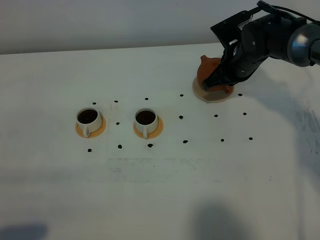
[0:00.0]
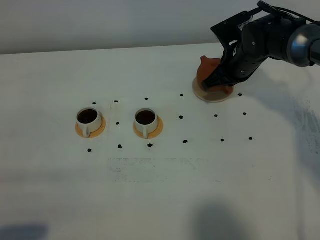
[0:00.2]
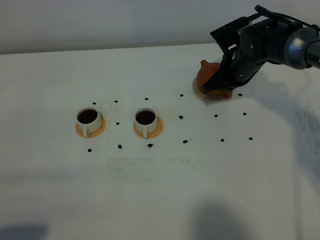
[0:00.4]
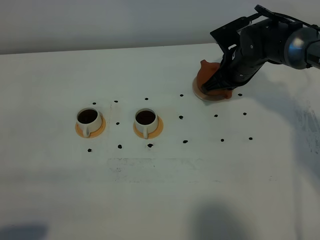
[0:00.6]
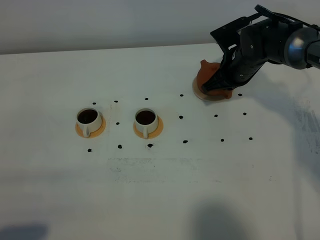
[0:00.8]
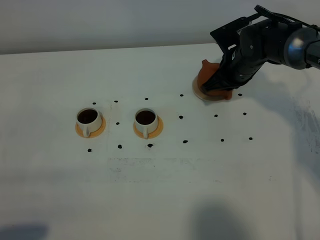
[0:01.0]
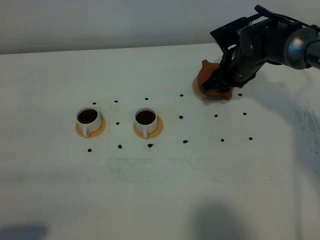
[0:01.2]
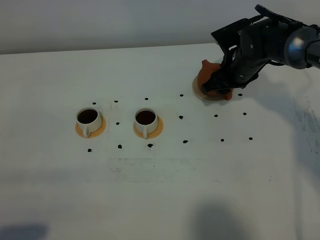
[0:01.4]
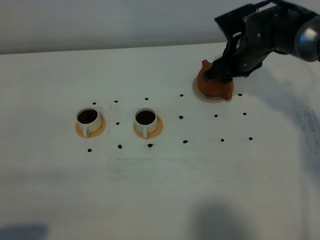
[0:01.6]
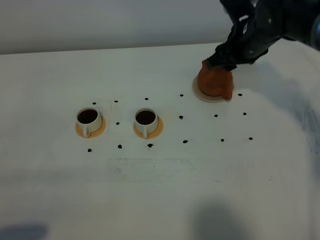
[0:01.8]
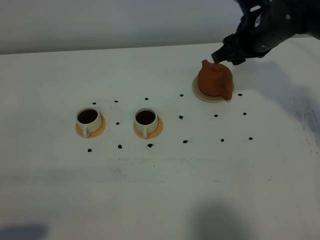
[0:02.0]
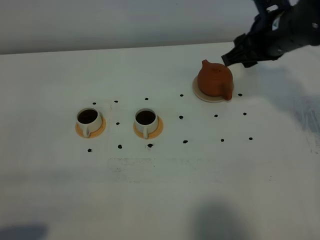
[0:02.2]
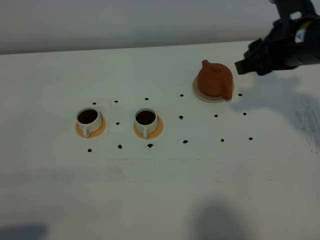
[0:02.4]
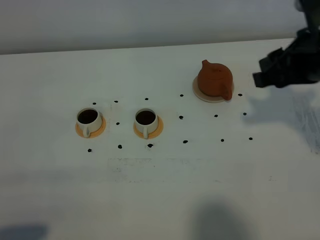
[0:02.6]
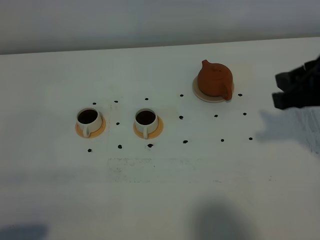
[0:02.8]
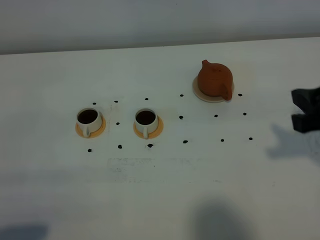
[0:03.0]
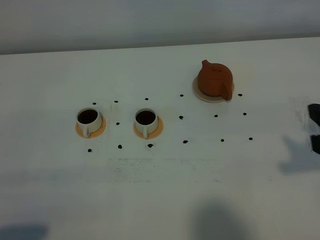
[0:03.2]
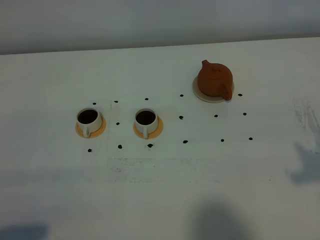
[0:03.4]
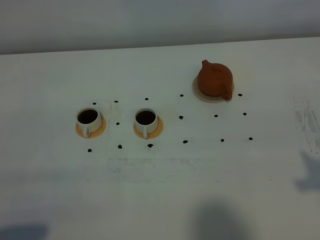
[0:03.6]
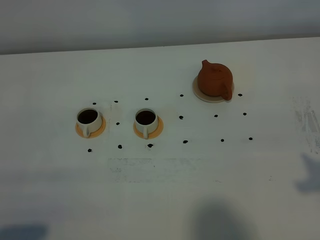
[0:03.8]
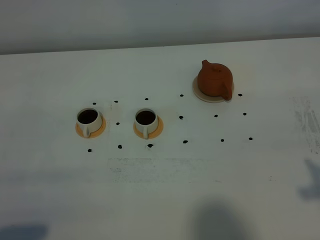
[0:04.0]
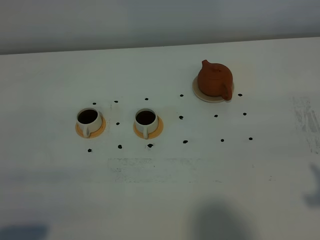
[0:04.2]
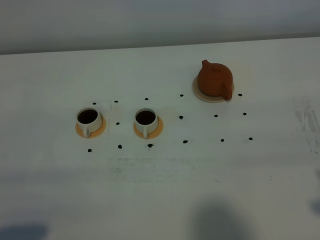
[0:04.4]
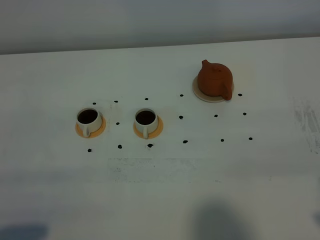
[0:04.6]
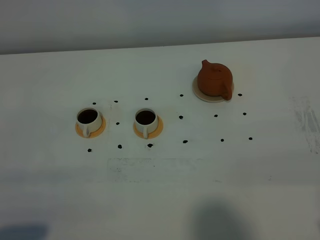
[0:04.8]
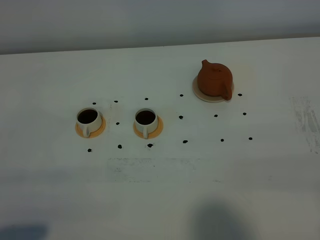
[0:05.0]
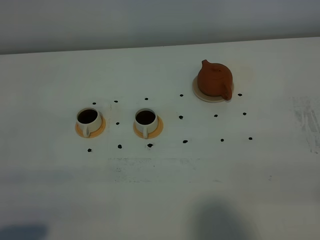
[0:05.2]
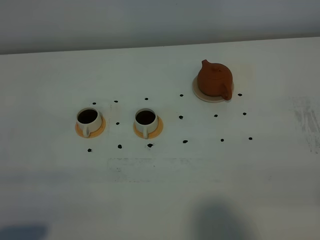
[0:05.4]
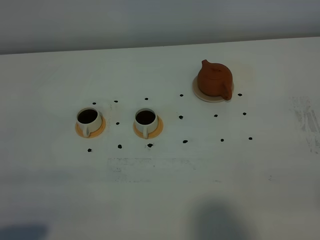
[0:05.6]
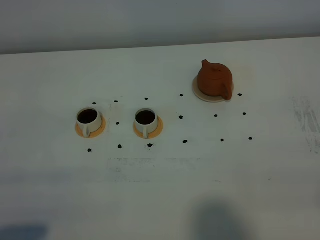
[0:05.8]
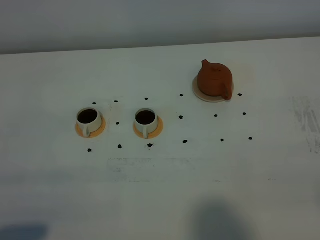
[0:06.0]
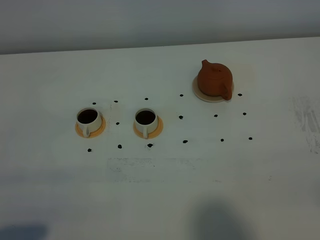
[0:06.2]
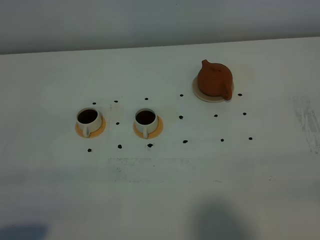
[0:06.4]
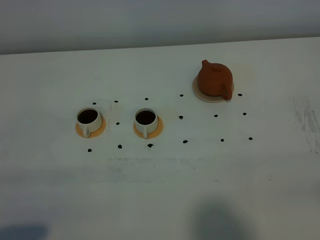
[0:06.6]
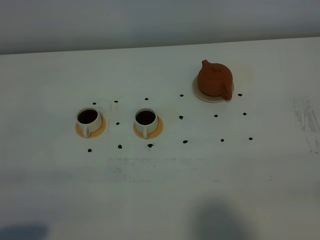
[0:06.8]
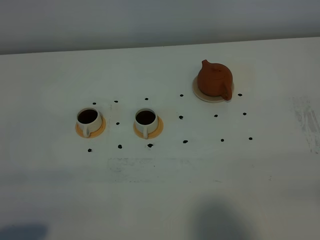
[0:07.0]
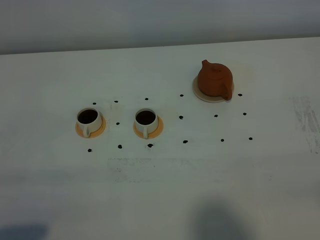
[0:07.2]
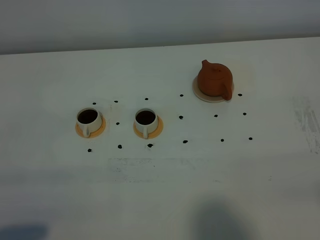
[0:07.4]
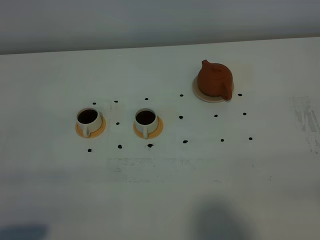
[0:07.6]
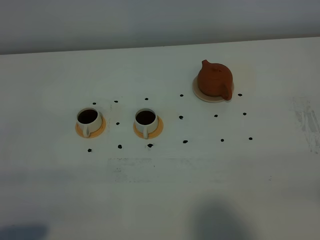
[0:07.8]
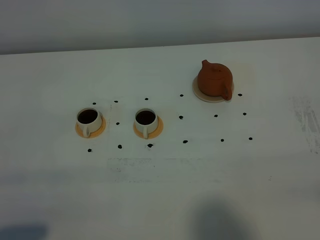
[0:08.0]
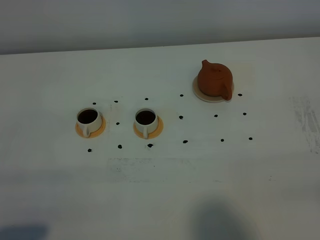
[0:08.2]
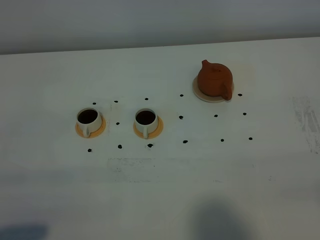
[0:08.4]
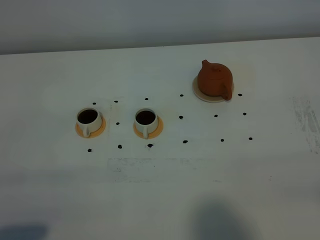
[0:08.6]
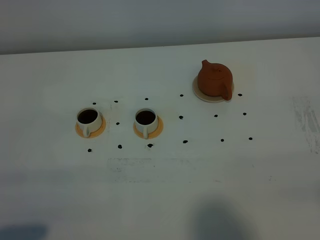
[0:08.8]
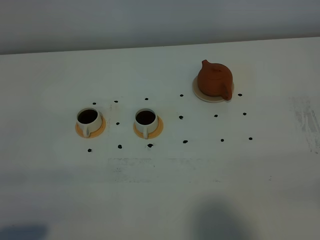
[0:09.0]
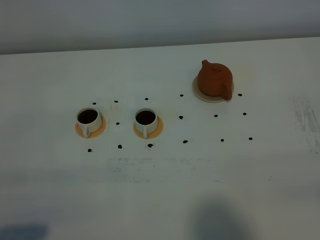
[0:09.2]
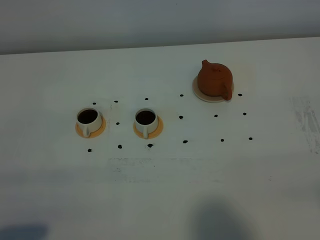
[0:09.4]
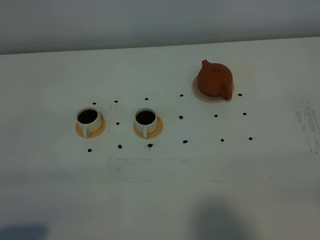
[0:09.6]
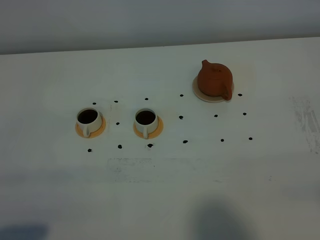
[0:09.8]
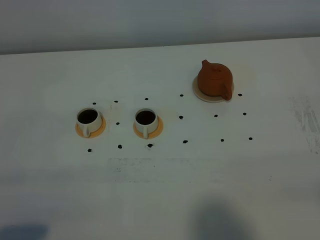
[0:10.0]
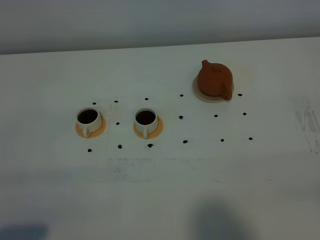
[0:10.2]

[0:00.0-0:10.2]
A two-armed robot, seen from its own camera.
Task of the whole recording: grasp the brown teapot and pour the tea into the two white teacups one by one, put the brown teapot back in its original place.
0:00.0 to 0:01.4: The right gripper opens its fingers.
0:01.4 to 0:03.0: The right gripper is displaced backward and upward by some 30 cm.
0:03.0 to 0:04.4: The right gripper travels backward by about 10 cm.
0:07.2 to 0:10.2: The two grippers keep their place.

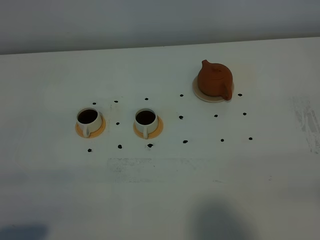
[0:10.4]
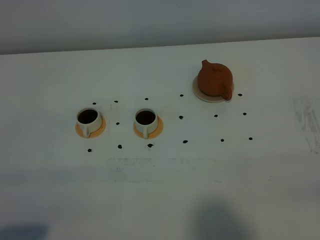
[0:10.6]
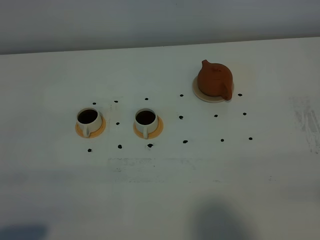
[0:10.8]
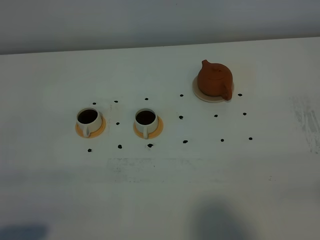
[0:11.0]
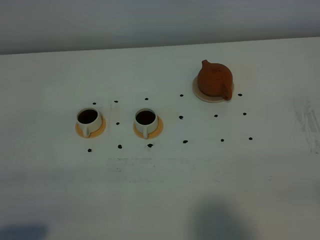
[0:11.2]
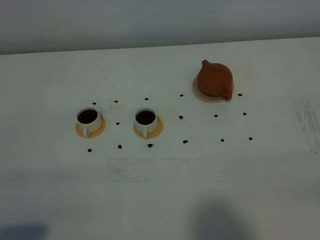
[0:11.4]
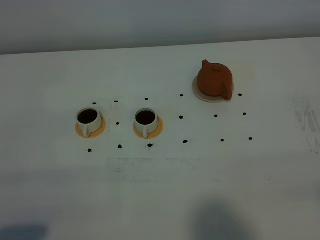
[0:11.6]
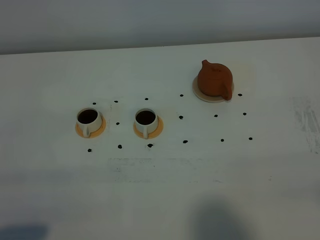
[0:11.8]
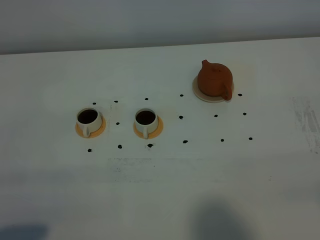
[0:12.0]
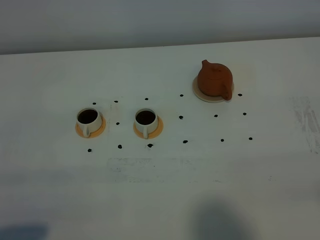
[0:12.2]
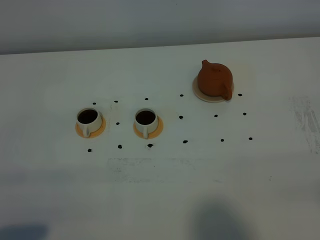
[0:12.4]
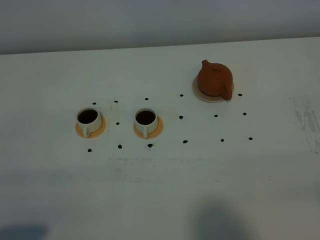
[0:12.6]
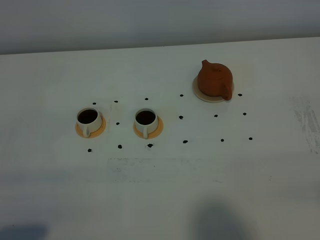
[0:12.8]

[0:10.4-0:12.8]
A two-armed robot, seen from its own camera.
Task of the whole recording: grasp the brown teapot and pour the tea into the two white teacups one by one, put the brown teapot back in its original place.
0:10.4 to 0:12.8: The two grippers keep their place.

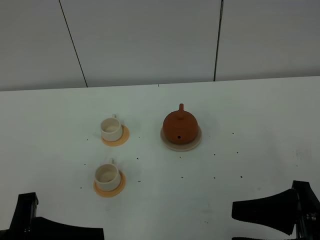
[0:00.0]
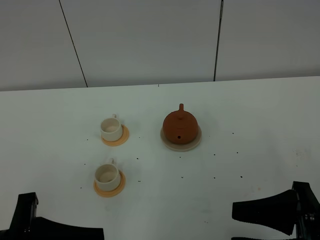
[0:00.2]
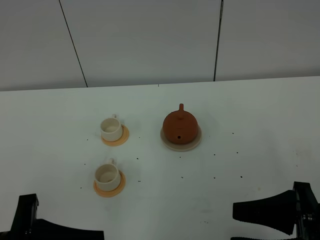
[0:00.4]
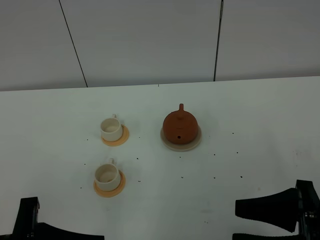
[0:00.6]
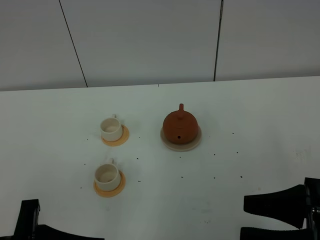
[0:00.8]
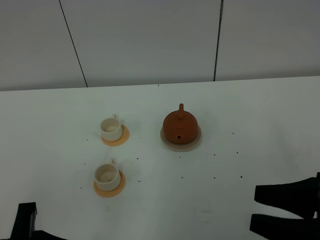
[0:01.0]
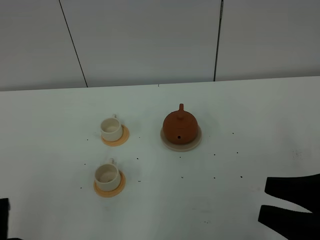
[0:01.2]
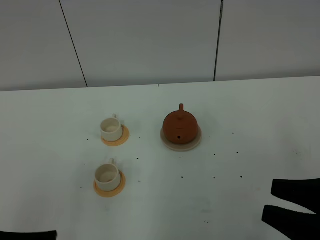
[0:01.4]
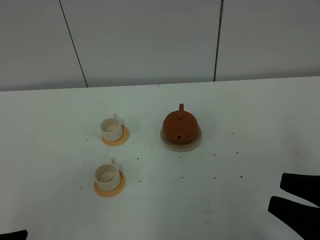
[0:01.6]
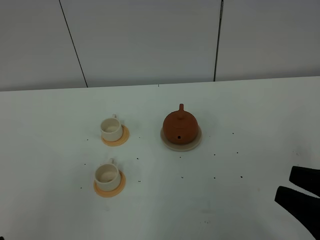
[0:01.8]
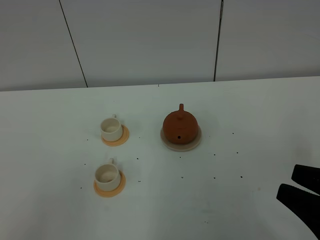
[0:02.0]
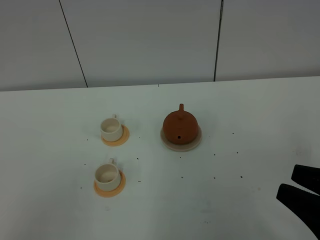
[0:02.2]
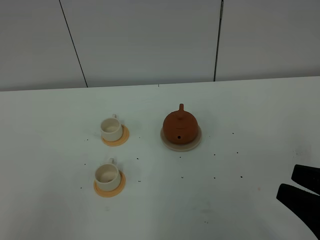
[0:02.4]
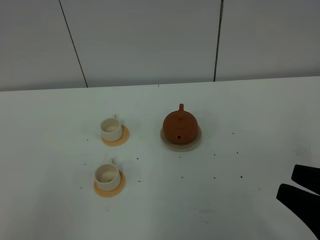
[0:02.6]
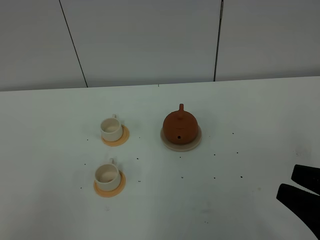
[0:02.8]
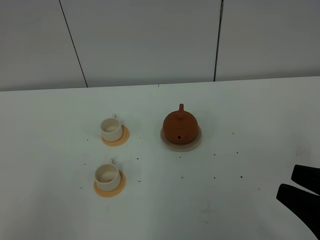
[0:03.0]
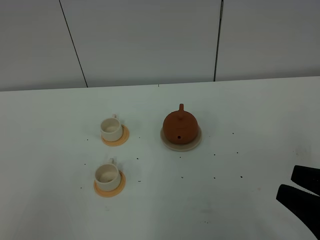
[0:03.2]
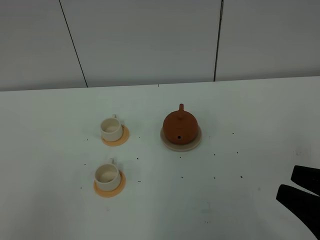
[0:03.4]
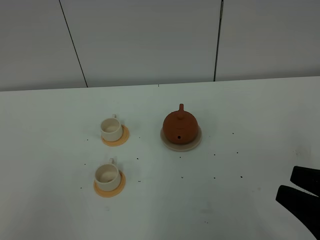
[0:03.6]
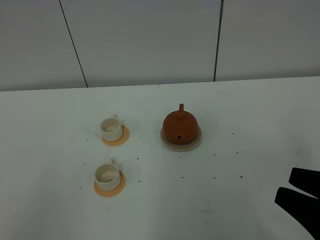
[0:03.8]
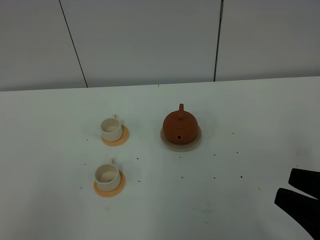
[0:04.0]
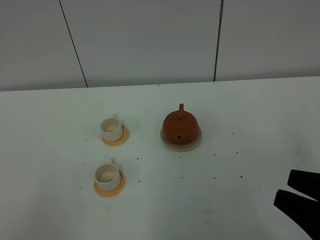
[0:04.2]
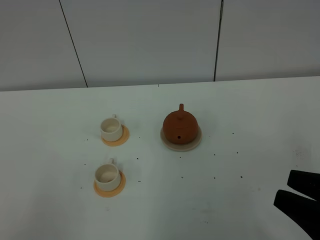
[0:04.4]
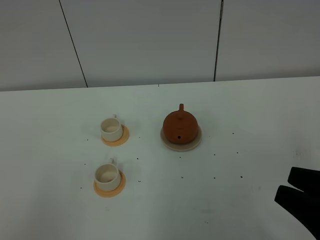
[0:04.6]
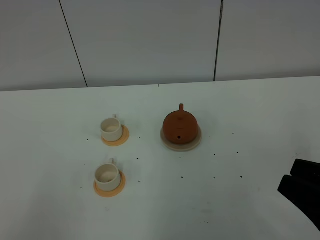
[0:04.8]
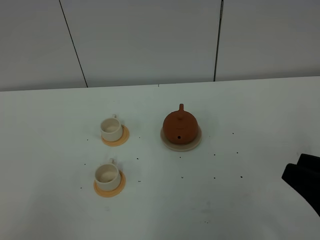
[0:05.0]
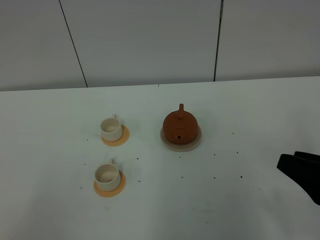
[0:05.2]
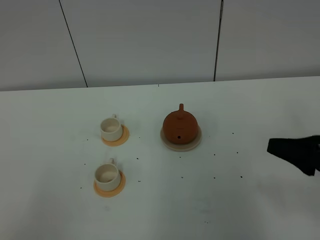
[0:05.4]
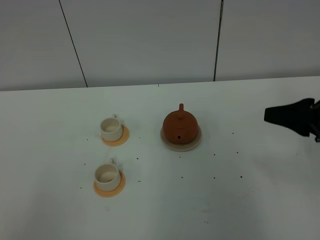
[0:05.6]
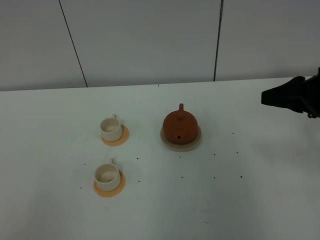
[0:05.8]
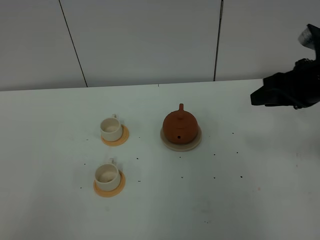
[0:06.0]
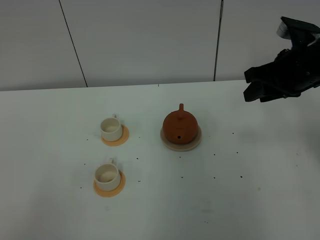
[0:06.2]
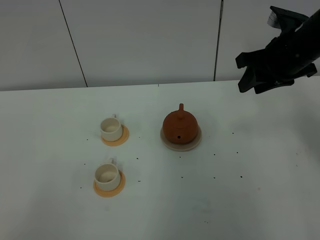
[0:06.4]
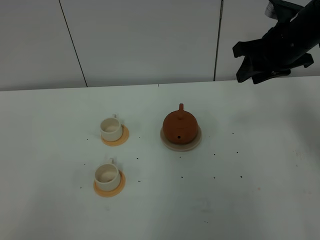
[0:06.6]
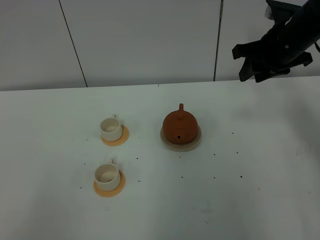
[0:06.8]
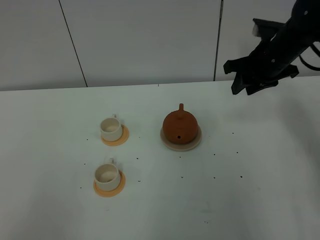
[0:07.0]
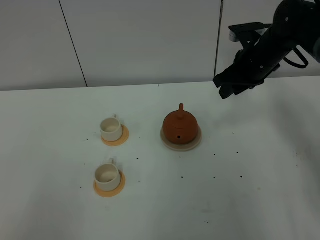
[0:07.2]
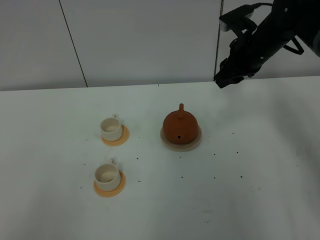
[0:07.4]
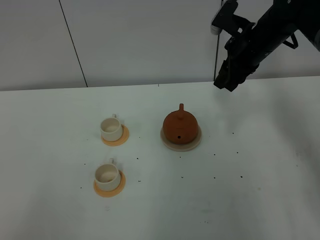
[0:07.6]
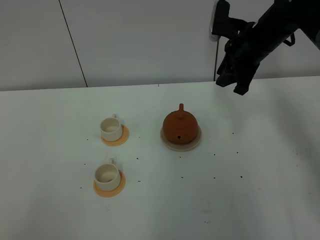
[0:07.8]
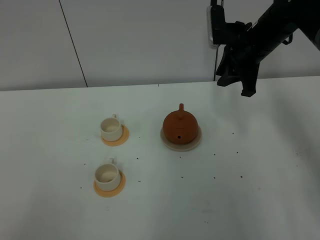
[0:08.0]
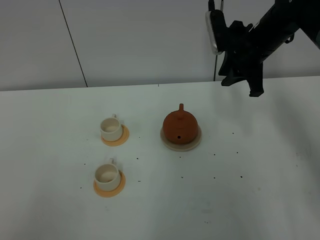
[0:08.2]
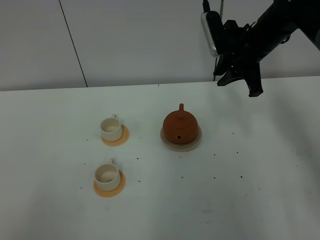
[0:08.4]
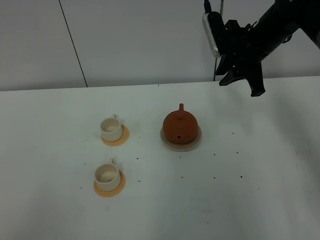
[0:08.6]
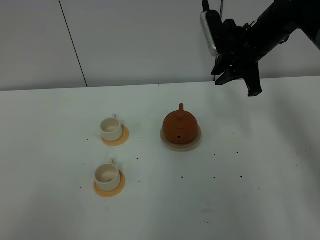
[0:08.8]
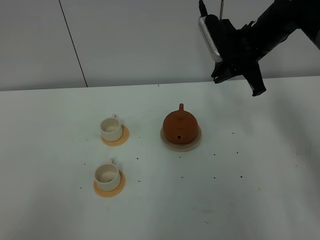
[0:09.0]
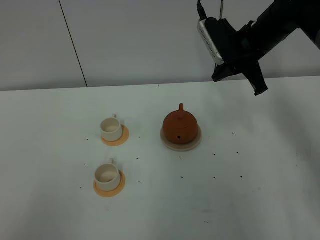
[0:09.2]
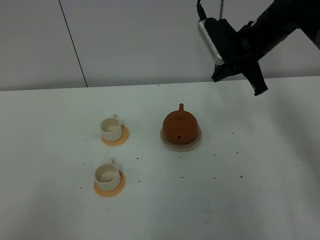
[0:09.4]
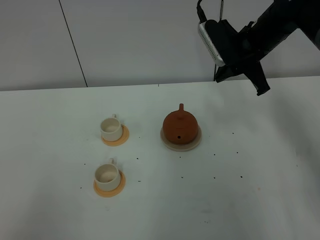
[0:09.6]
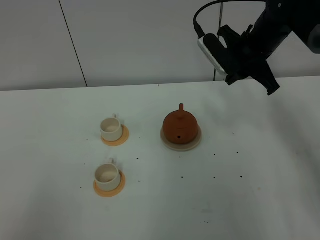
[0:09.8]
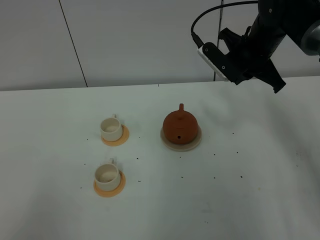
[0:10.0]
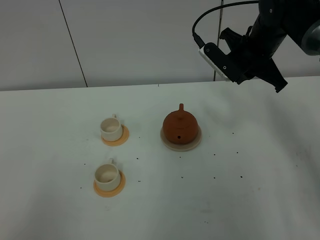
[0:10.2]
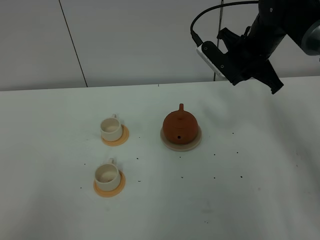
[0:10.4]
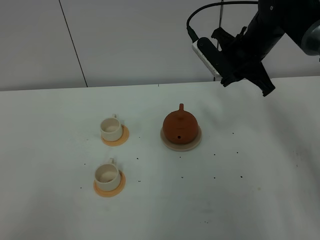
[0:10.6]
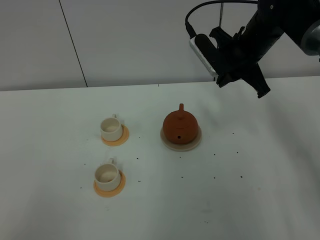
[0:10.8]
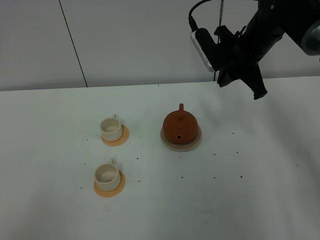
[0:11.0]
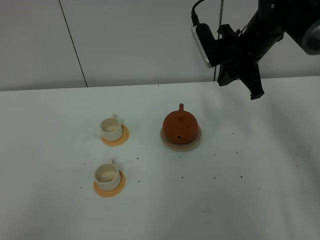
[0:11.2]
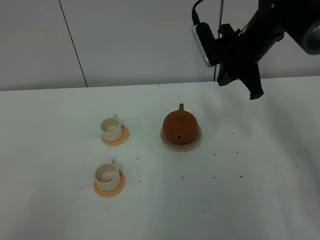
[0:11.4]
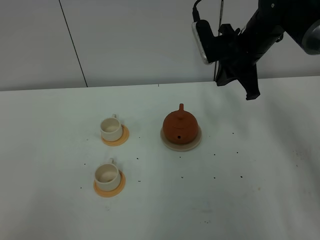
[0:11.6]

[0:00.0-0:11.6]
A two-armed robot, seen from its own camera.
Task of the whole recording: grasp the brown teapot and pour the tea into the two white teacups one by one, put the brown teapot back in its original place.
0:00.0 to 0:01.4: The left gripper ends up roughly 5 cm from where it was.
0:02.8 to 0:04.4: The grippers move only a little.
0:04.4 to 0:05.8: The right gripper shifts roughly 20 cm forward.
0:05.8 to 0:07.2: The right gripper travels forward and to the left by about 20 cm.
0:07.2 to 0:08.8: The right gripper closes its fingers.
0:08.8 to 0:10.2: The right gripper closes its fingers.
